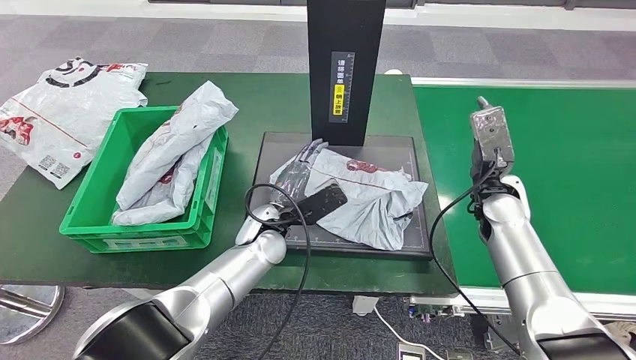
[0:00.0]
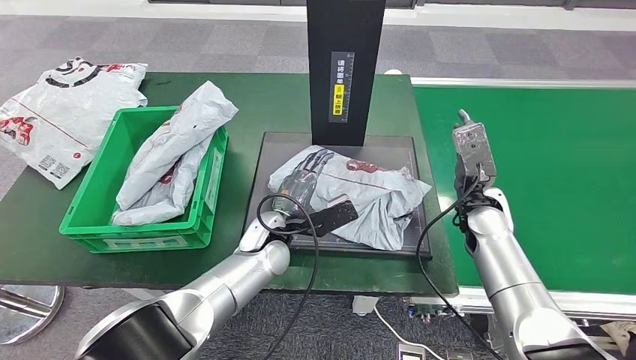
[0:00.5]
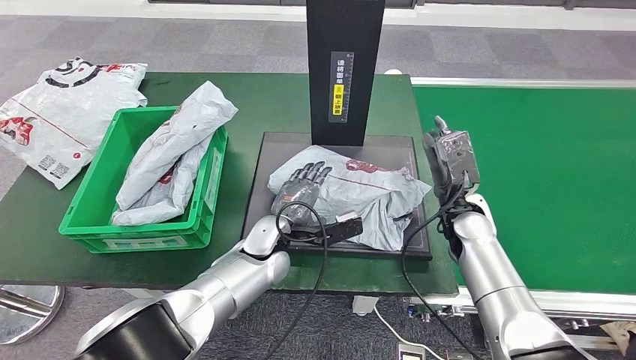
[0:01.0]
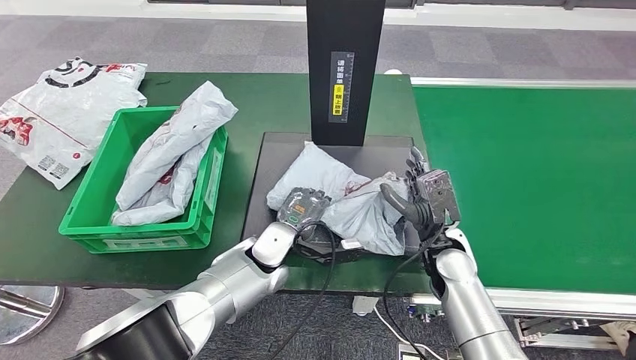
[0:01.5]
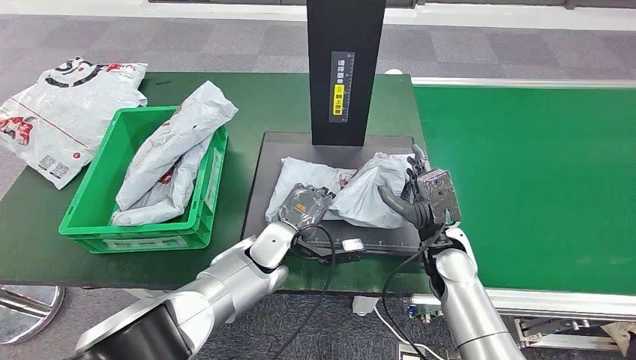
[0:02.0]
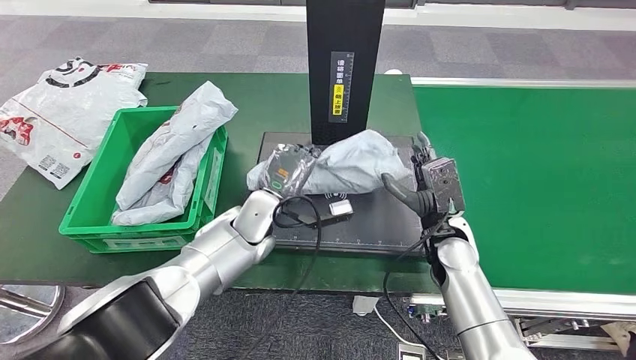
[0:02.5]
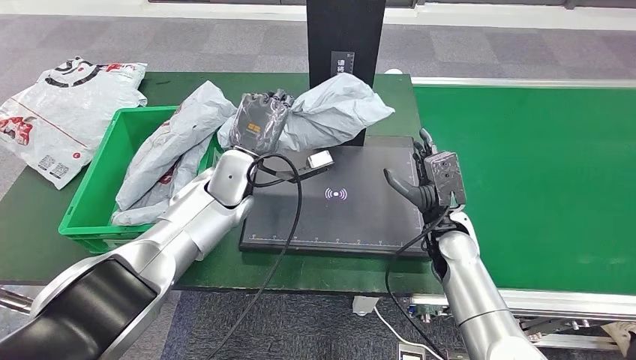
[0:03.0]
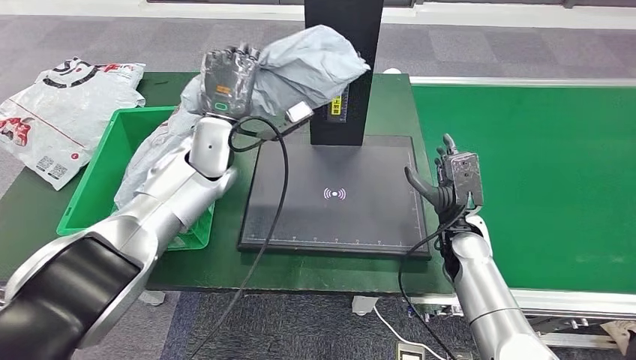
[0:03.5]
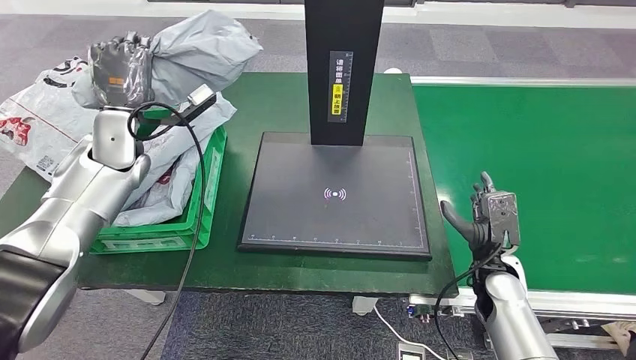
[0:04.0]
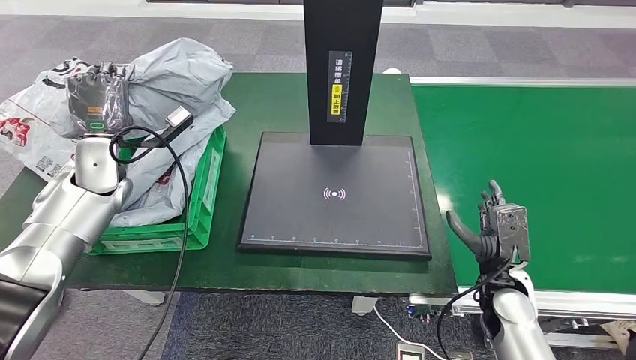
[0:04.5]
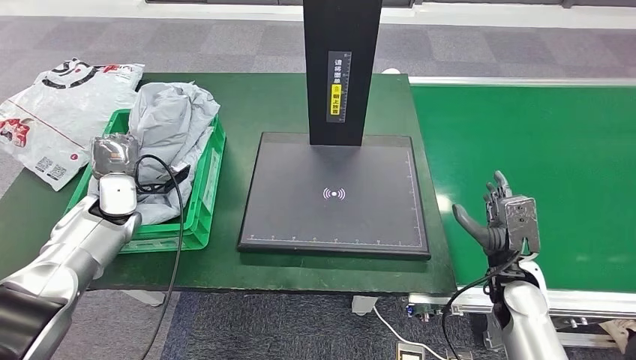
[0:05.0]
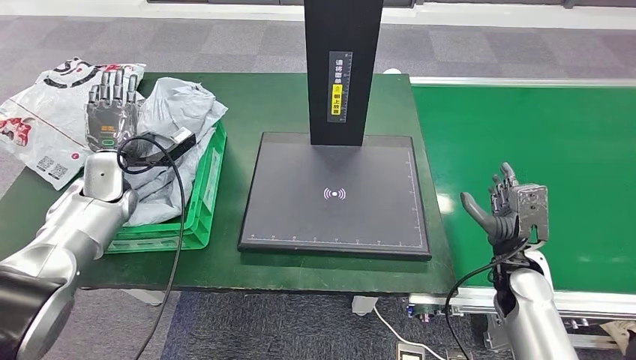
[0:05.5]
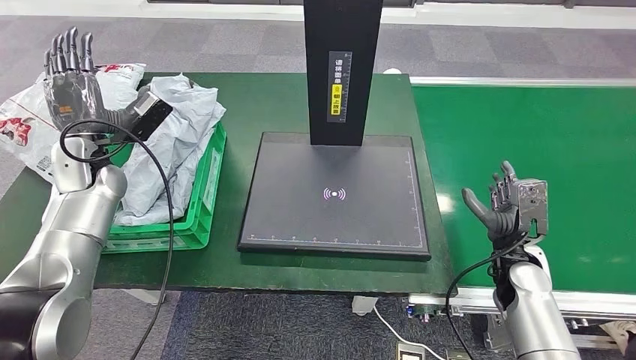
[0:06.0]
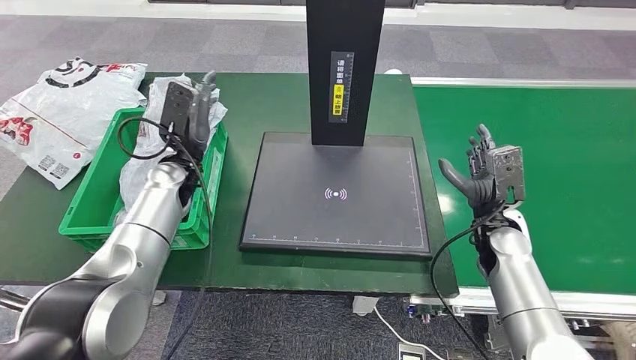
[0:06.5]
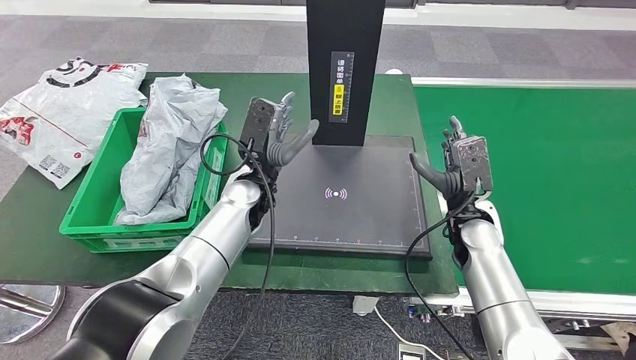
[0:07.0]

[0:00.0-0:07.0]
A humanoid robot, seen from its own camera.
Step, 0:00.0 to 0:03.0: Pick up the parcel from the inbound machine.
Step, 0:03.5 to 0:07.0: Place the parcel into the delivery box.
0:00.0 to 0:02.0: The right hand heads to the left, backward and downward, covering roughly 15 cm.
